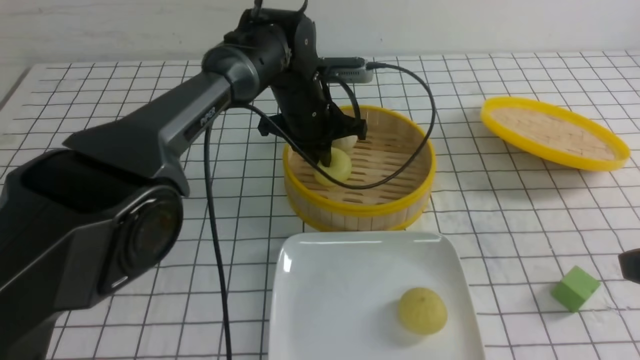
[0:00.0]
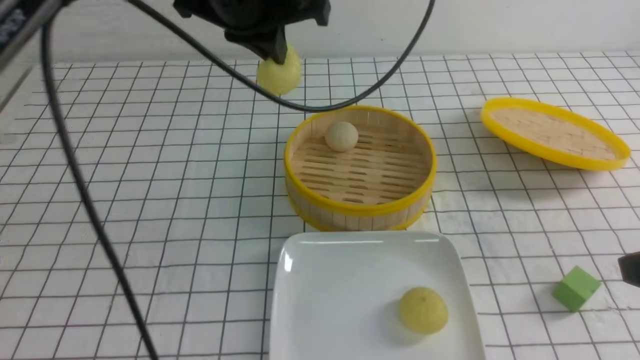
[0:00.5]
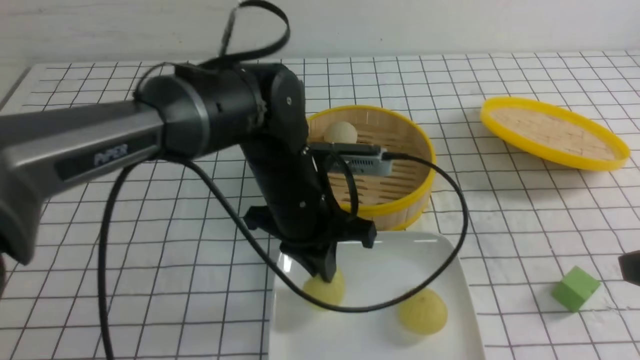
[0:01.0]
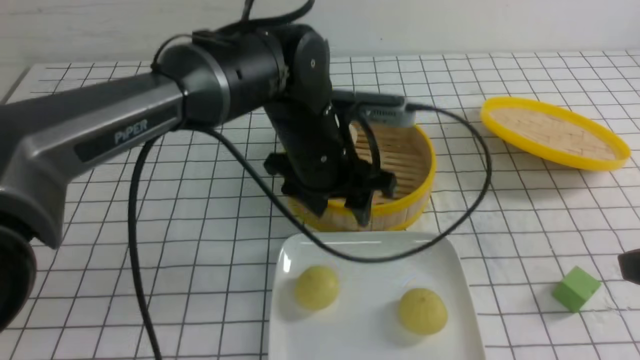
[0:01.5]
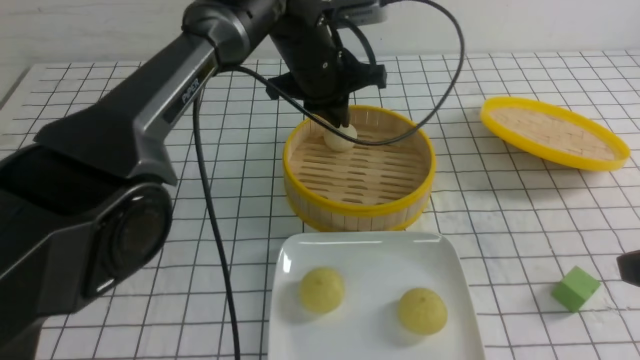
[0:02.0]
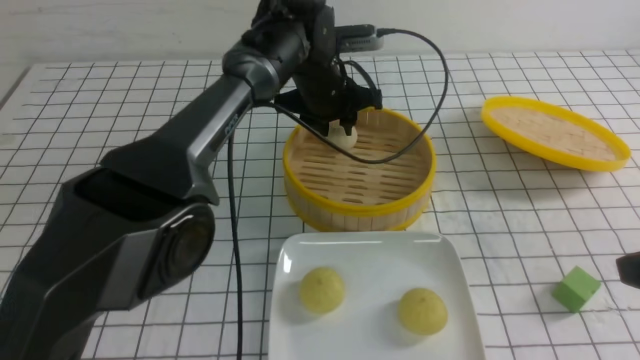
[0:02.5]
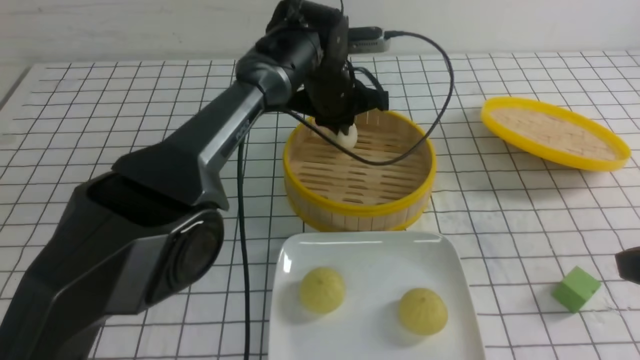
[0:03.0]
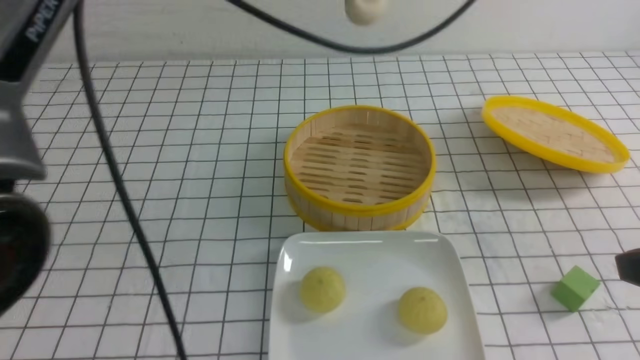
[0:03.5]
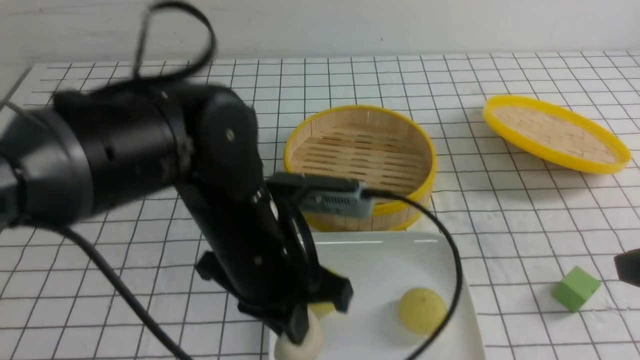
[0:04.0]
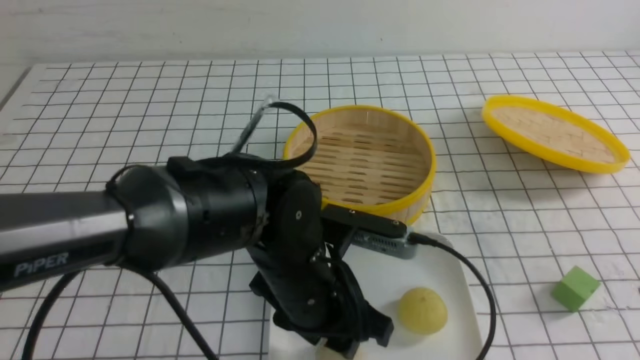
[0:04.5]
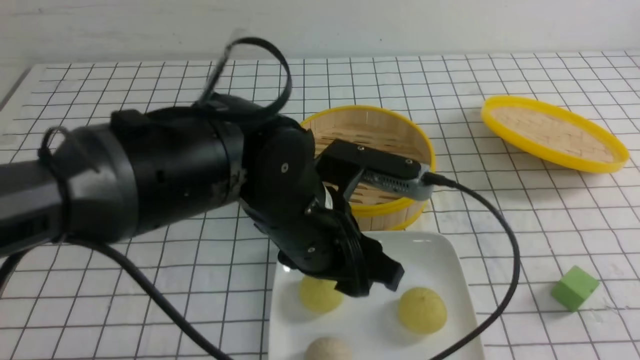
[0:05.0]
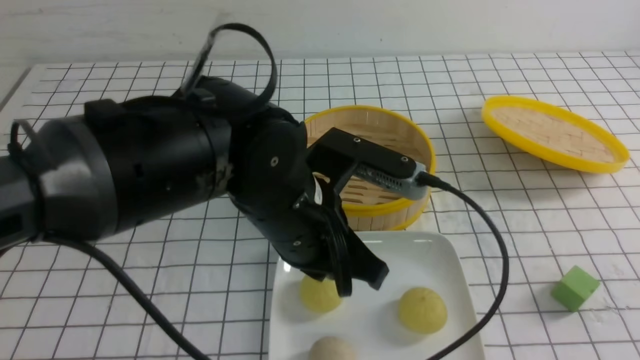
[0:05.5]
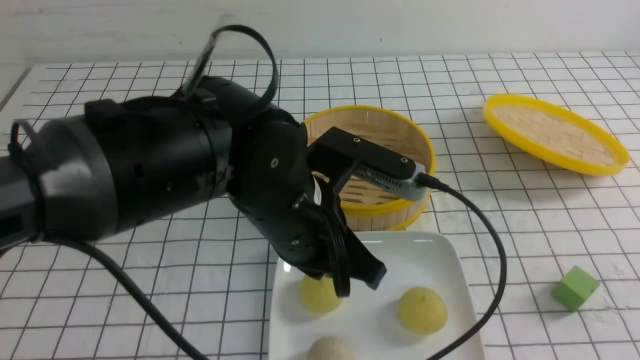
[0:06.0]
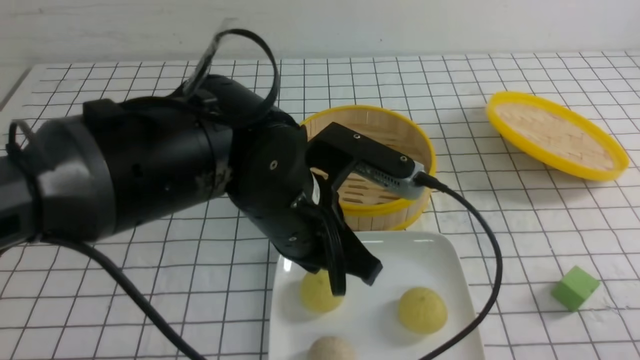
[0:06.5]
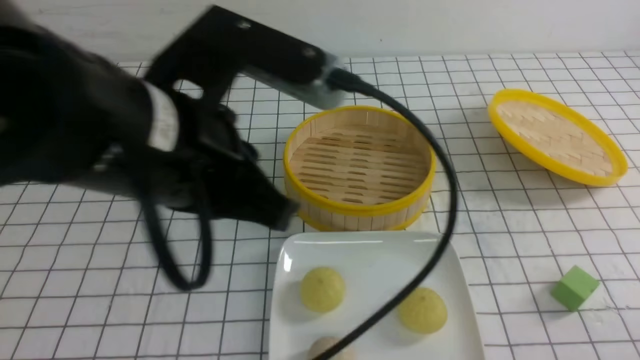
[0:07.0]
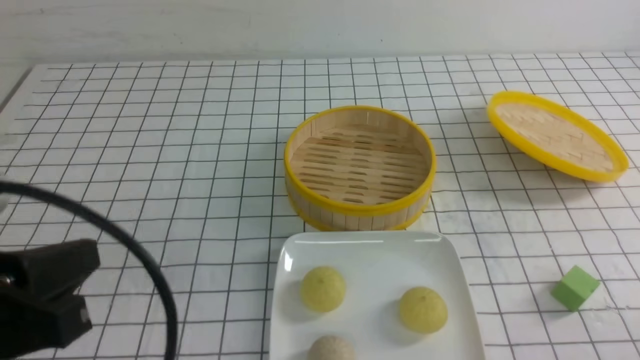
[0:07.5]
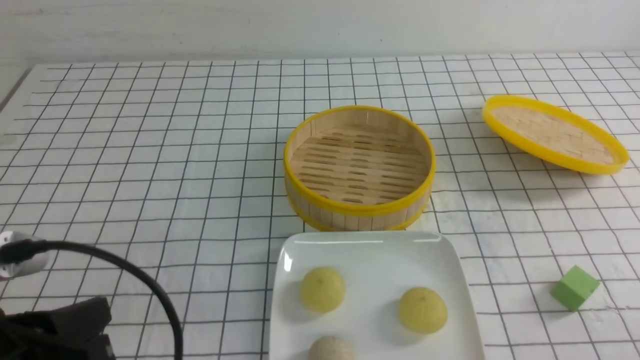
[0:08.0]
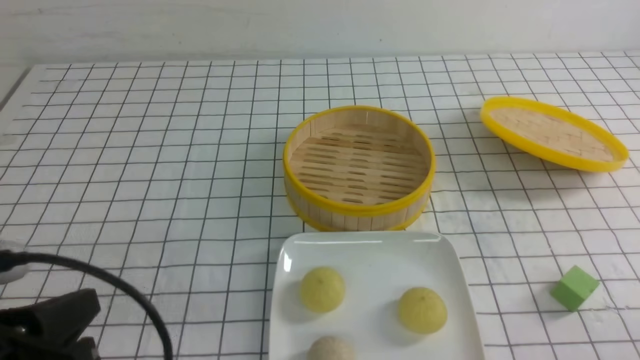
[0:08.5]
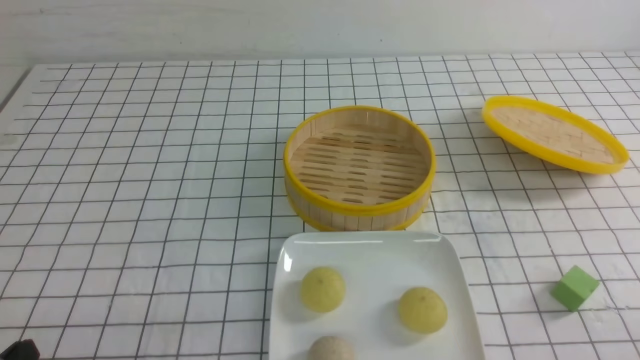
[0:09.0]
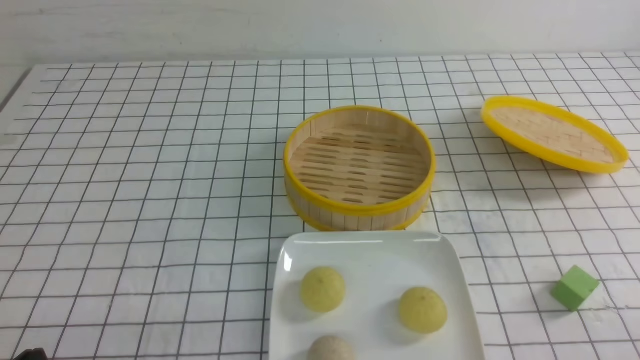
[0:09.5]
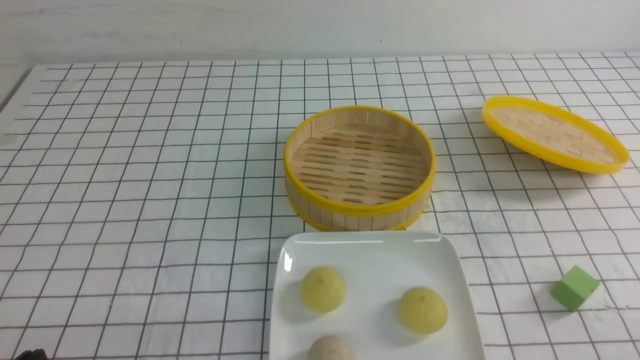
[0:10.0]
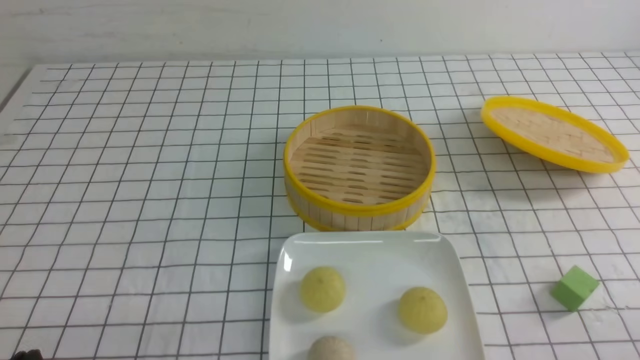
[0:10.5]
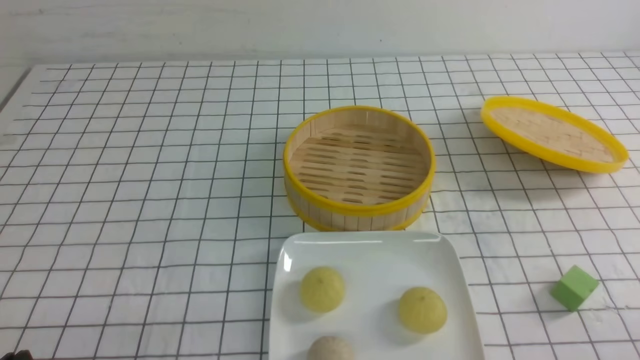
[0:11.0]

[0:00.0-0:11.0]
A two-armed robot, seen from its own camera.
Step, 0:00.5 to 0:01.0: use the left arm to put the steamed stuffed bun into the plate.
Step, 0:02.0 to 0:03.0: use the left arm to grab the steamed stuffed bun that is closest to it.
Step, 0:03.5 to 0:05.0: use the left arm to put the steamed stuffed bun into the plate.
0:00.0 to 0:02.0: The left gripper reaches about 15 cm backward, then returns, and opens and closes again.
0:02.0 to 0:03.5: The left gripper is displaced upward and backward by some 15 cm, and opens, then closes again.
0:03.5 to 0:05.5: The left gripper heads downward and backward, covering roughly 20 cm, and opens and closes again. Meanwhile the right gripper travels backward by about 10 cm.
0:05.5 to 0:07.5: The left gripper shifts some 25 cm to the left and backward. Meanwhile the right gripper moves downward, roughly 10 cm.
0:07.5 to 0:09.0: The left gripper travels downward by some 15 cm.

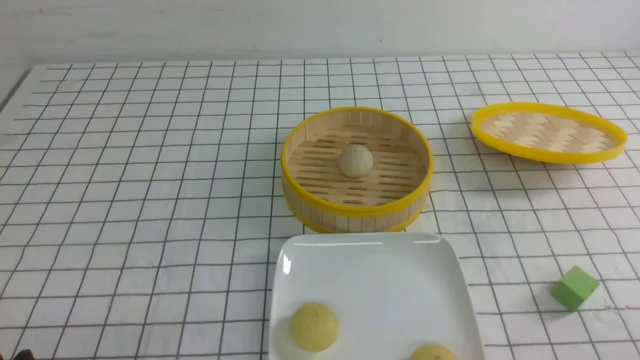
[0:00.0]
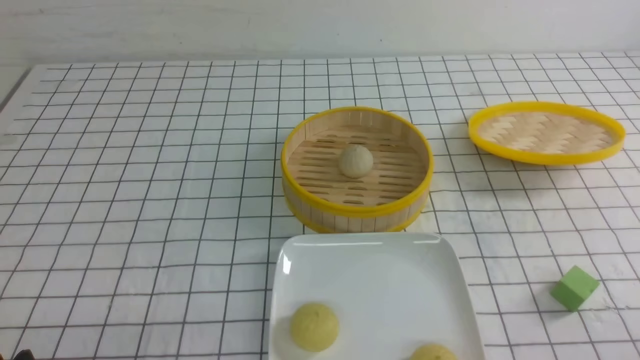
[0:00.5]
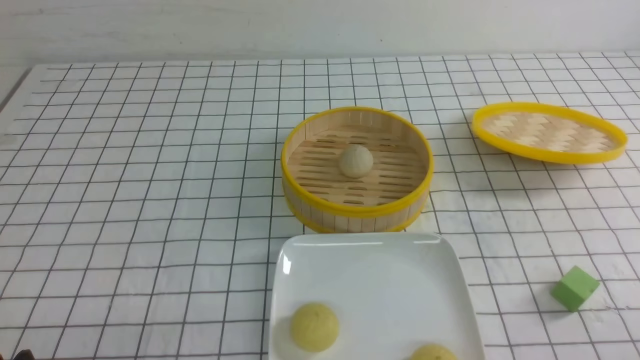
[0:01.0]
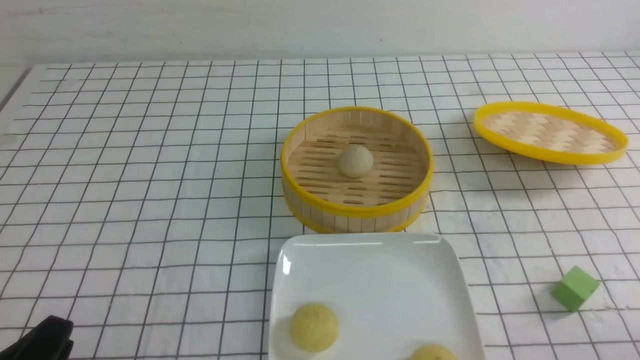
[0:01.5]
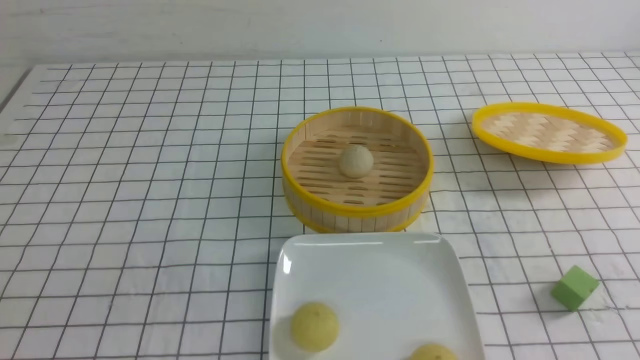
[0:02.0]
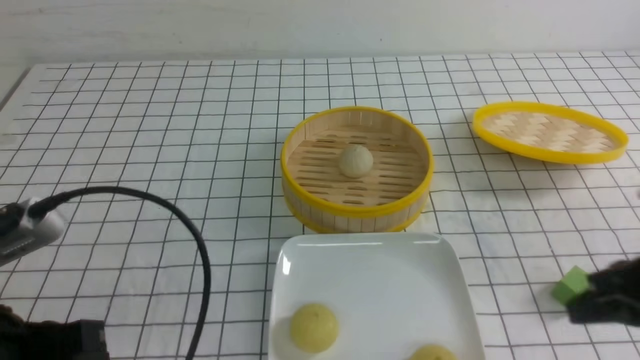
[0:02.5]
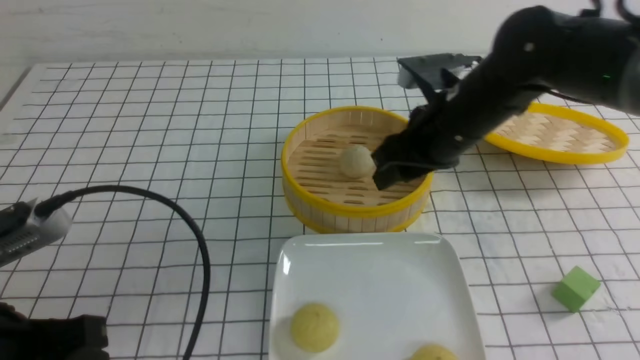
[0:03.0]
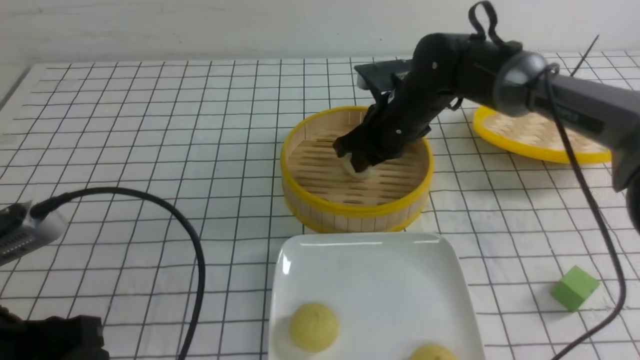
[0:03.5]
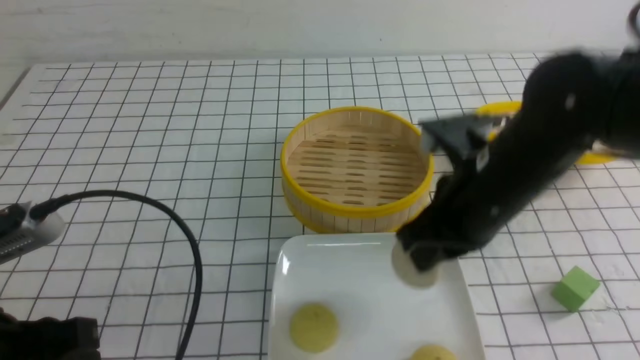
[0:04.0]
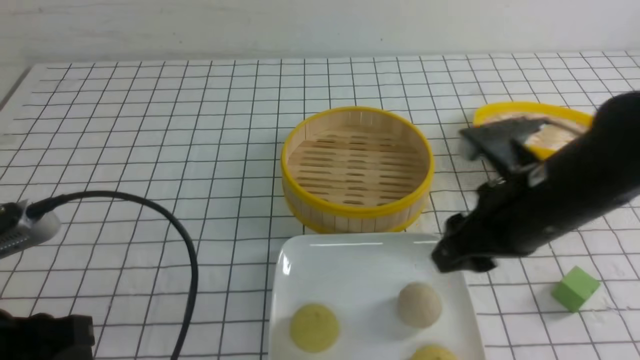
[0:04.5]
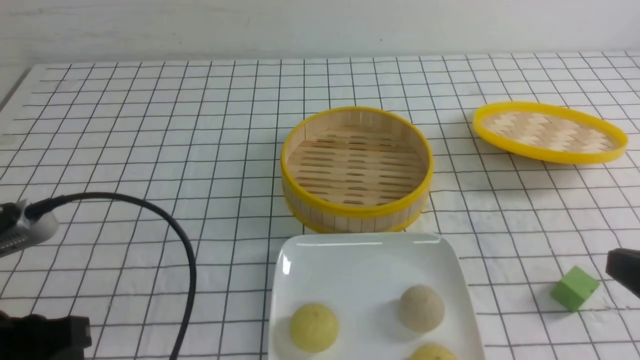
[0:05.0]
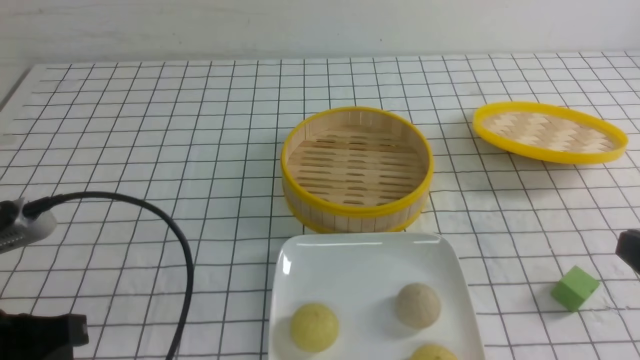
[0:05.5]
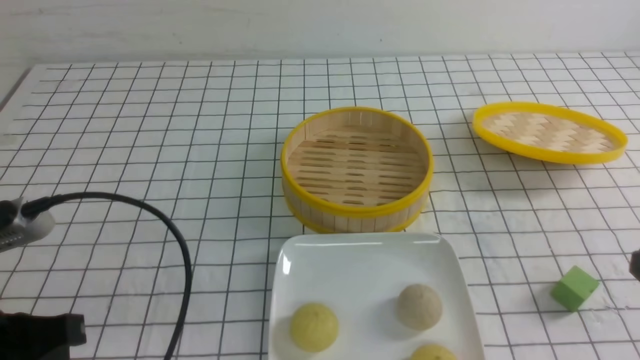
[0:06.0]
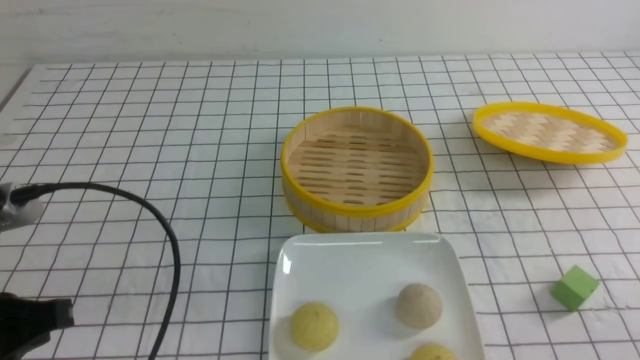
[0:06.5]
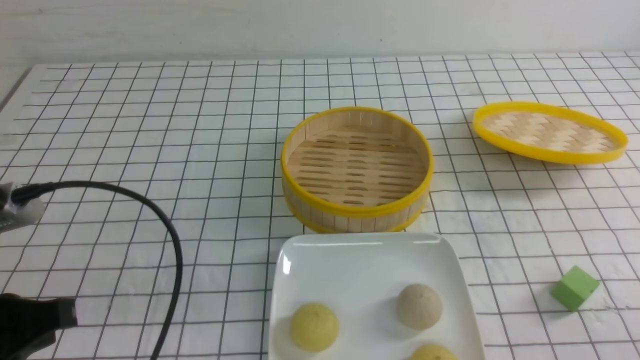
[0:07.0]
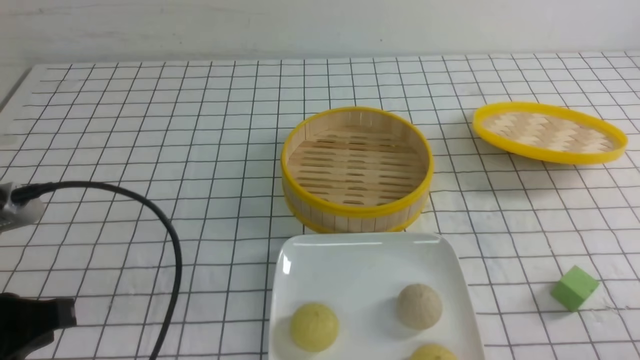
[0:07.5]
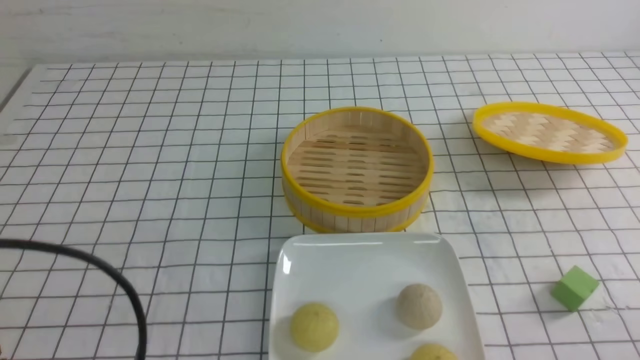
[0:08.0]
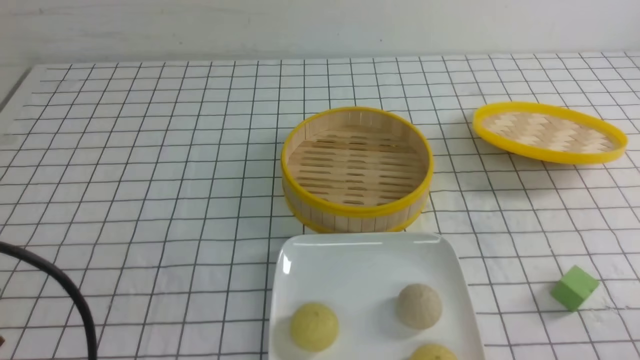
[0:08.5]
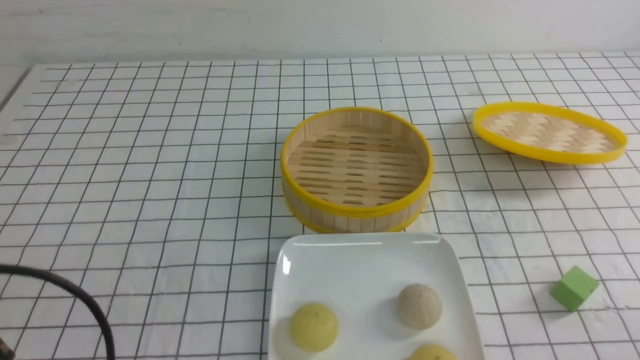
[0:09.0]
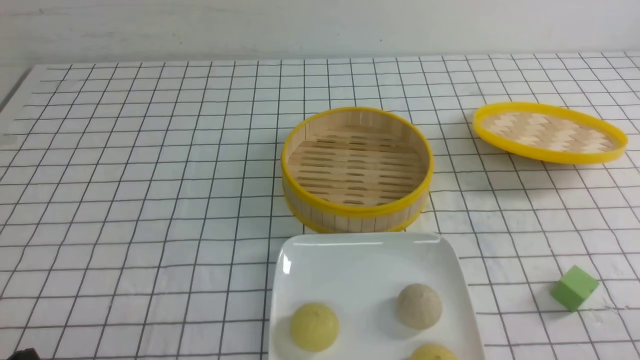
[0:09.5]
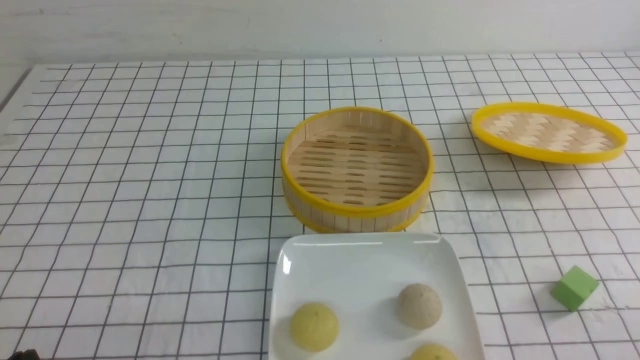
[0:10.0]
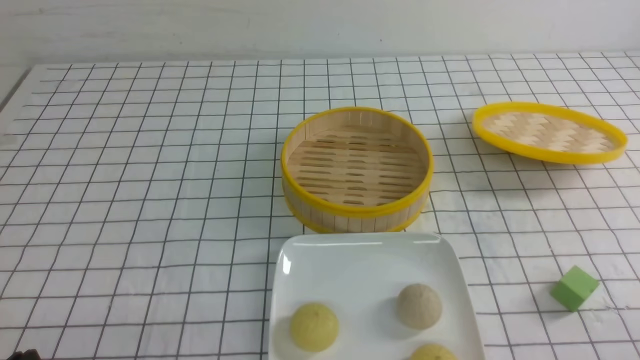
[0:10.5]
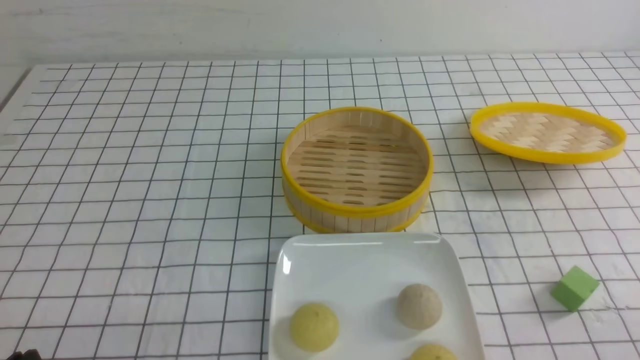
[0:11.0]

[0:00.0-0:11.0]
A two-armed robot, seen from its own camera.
Step, 0:00.0 to 0:03.5: use the right arm to grab the steamed stuffed bun that is closest to it.
Step, 0:04.0 to 0:04.5: use the right arm to put the steamed stuffed bun into the plate.
0:02.0 to 0:03.5: The left gripper shifts approximately 5 cm forward, and closes, then reopens. The right gripper moves forward and to the left, roughly 40 cm.
0:03.5 to 0:05.5: The left gripper closes up; the right gripper moves backward and to the right, approximately 40 cm, and closes up.
0:07.5 to 0:09.0: The left gripper goes about 5 cm backward.
0:09.0 to 0:11.0: The left gripper moves downward, some 10 cm.
